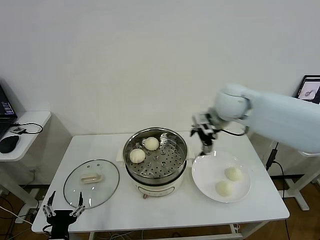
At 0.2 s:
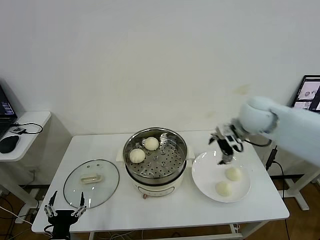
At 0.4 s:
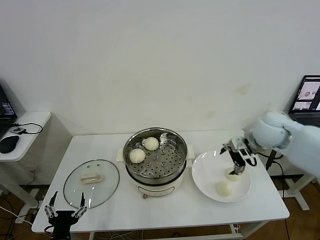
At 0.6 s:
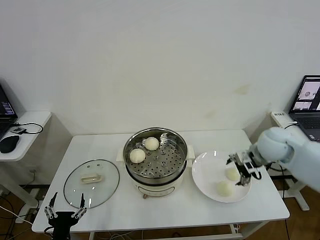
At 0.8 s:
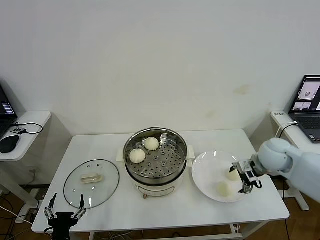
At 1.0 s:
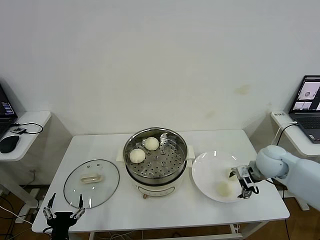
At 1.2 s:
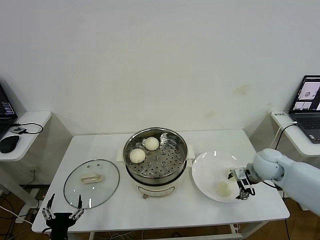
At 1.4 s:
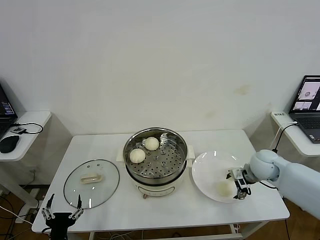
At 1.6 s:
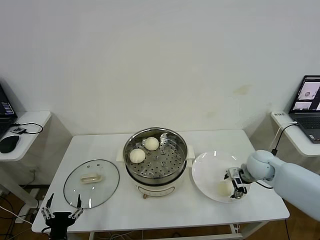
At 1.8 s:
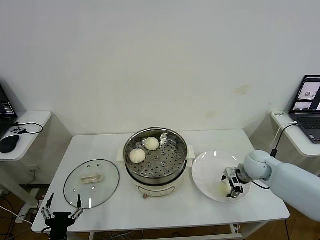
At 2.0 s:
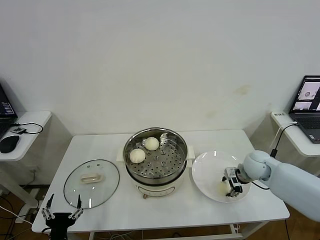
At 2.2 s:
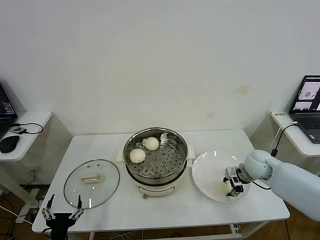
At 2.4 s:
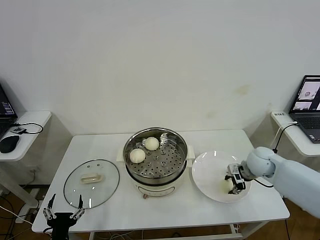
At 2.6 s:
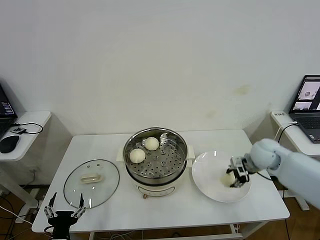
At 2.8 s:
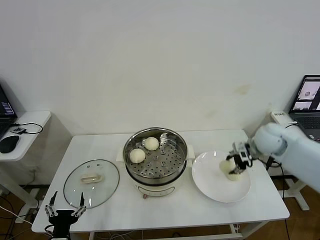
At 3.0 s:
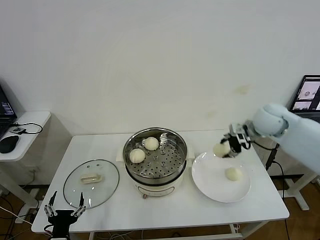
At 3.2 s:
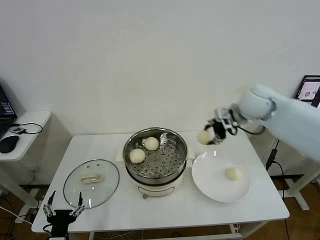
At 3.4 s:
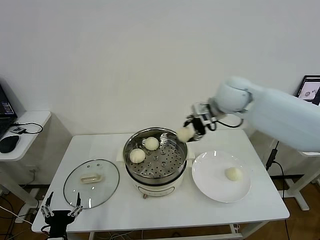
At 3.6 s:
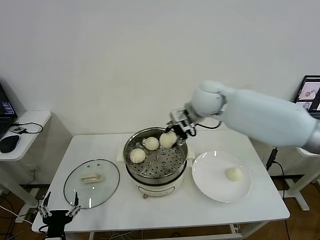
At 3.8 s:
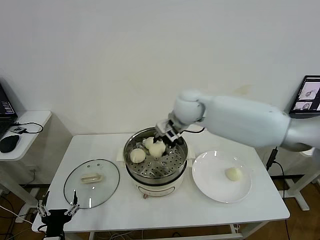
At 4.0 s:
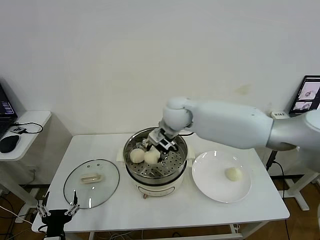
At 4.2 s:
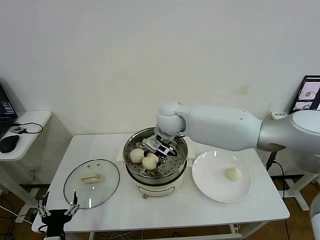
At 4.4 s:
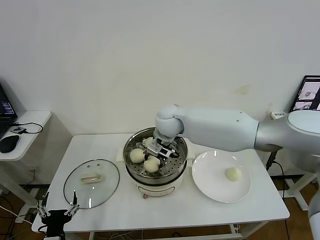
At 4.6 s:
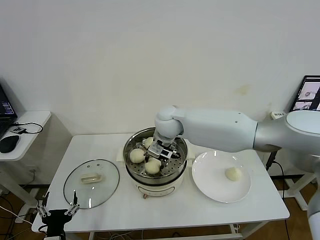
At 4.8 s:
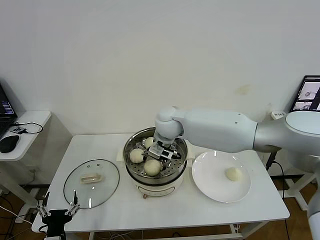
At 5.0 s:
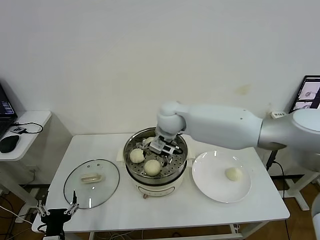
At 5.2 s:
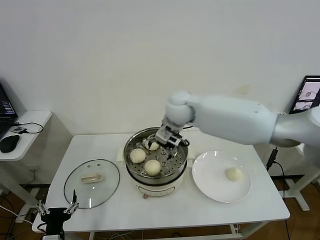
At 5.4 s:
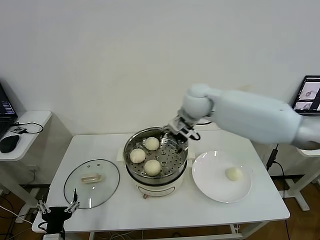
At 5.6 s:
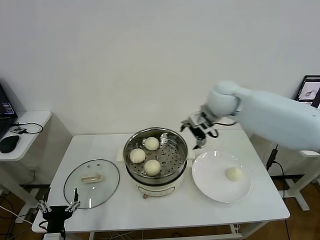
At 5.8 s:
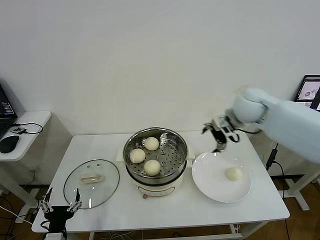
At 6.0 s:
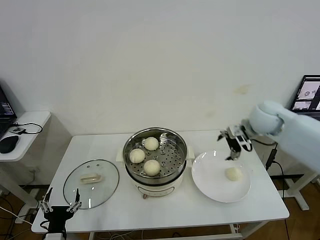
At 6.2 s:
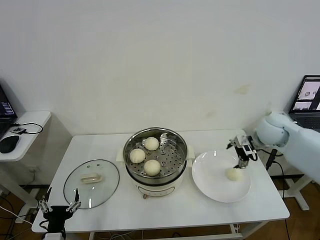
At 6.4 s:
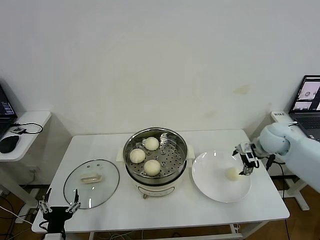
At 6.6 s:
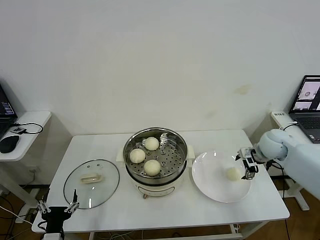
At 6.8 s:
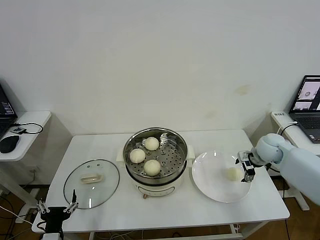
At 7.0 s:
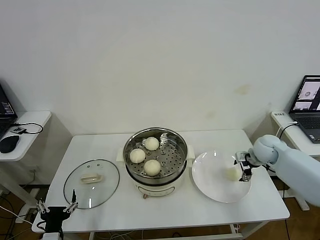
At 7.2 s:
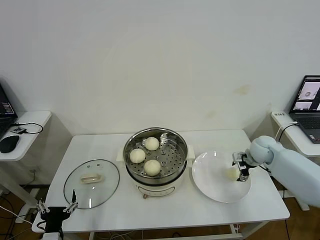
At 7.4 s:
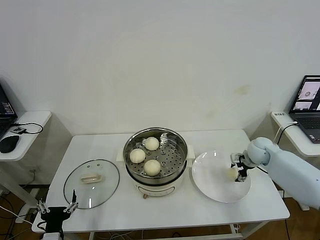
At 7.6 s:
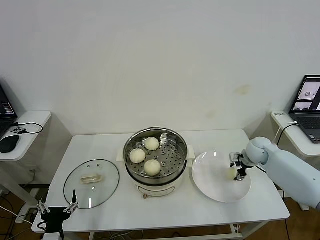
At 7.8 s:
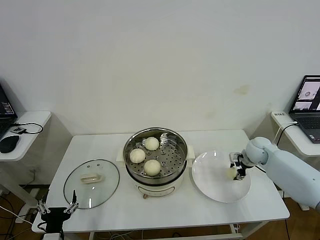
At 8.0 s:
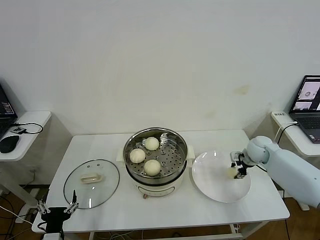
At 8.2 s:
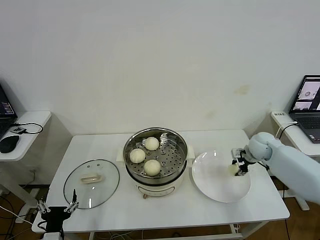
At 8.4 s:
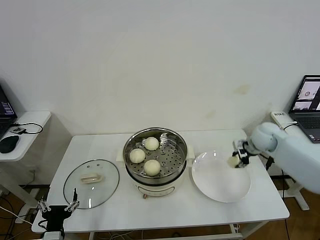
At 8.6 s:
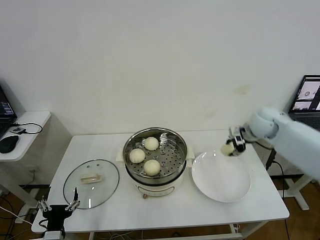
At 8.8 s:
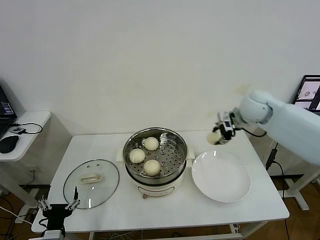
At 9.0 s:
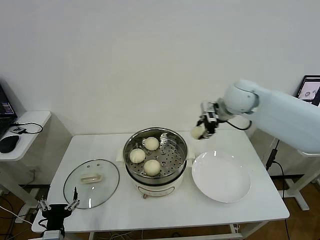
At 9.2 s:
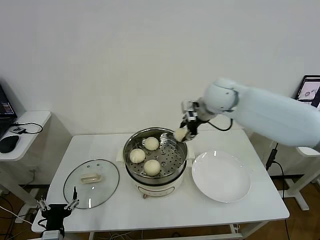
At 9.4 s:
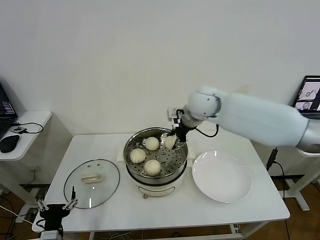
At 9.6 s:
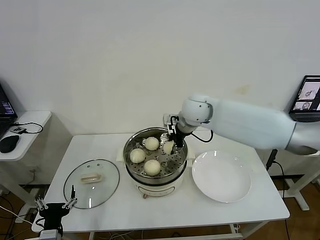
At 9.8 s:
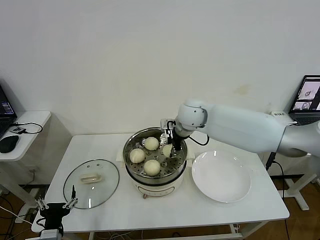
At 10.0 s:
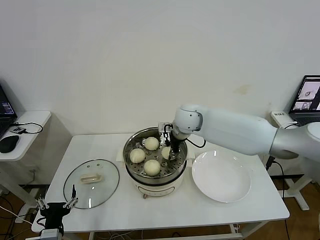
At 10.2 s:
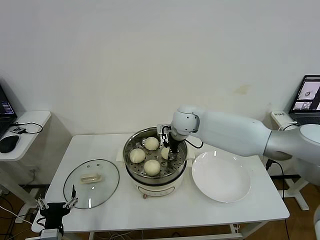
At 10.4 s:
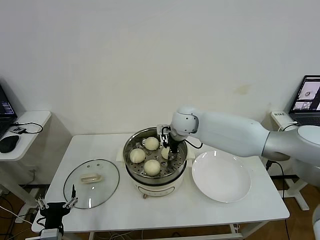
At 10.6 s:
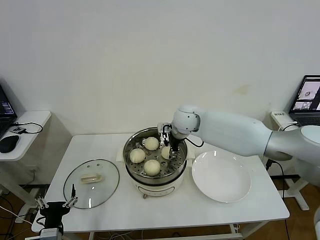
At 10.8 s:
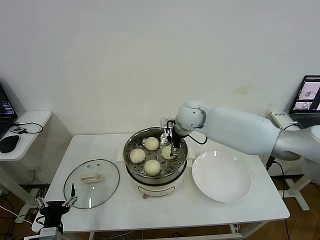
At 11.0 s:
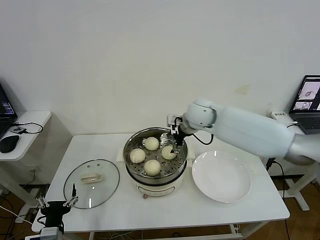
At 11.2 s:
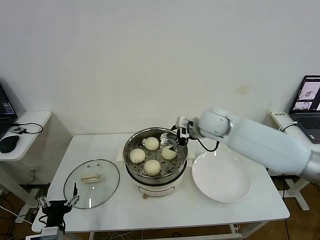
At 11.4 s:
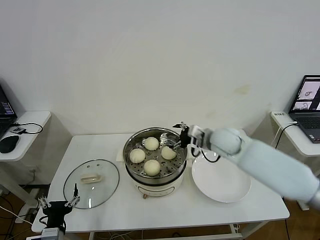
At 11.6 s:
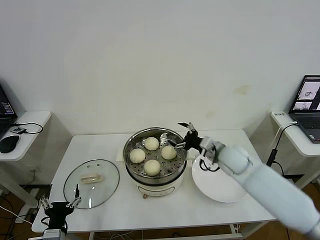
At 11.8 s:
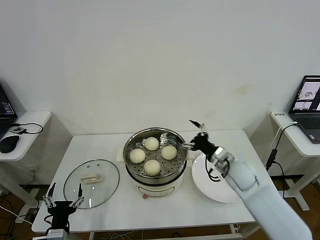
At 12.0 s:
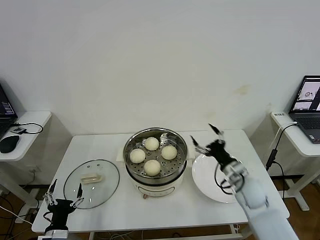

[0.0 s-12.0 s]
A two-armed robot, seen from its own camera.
Step, 0.0 to 1.8 s: Grasp the baozi in the plate with right gripper.
Step, 2.2 to 4.8 s: Place the baozi on the steamer with right gripper.
Step, 5.0 to 7.8 s: Grasp the baozi in the plate with right gripper.
Step, 8.0 to 10.8 s: Place the baozi on the steamer with right gripper.
0.0 to 1.6 s: The right gripper moves downward and to the right, roughly 25 cm.
1.6 to 3.0 s: The right gripper travels upward by some 20 cm, and closes its fingers.
3.0 to 4.4 s: The right gripper heads to the left, covering roughly 30 cm.
4.4 to 6.0 s: The right gripper goes approximately 30 cm to the right, and opens its fingers.
6.0 to 7.6 s: The right gripper goes about 15 cm downward, and closes up.
7.6 to 9.0 s: The right gripper goes roughly 25 cm upward and to the left.
9.0 to 10.4 s: The right gripper is displaced to the left and downward by approximately 20 cm.
10.4 to 12.0 s: The right gripper travels to the right, backward and downward by roughly 30 cm, and opens its fingers.

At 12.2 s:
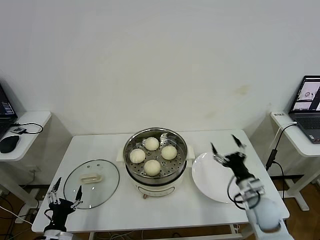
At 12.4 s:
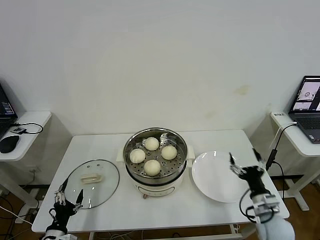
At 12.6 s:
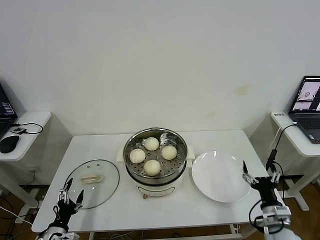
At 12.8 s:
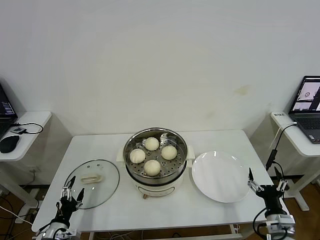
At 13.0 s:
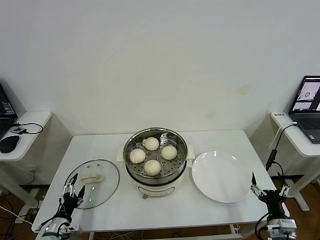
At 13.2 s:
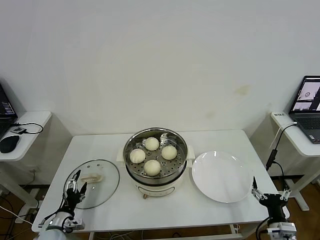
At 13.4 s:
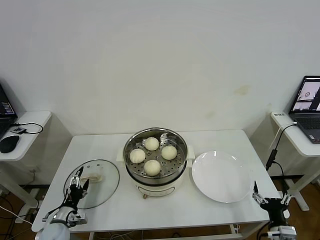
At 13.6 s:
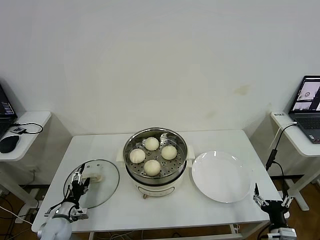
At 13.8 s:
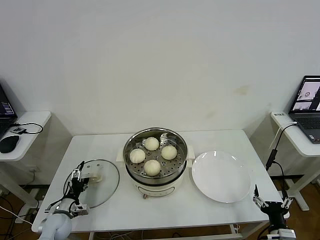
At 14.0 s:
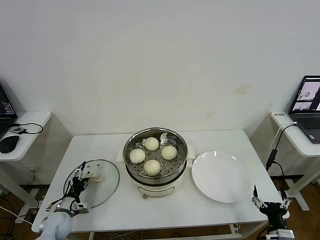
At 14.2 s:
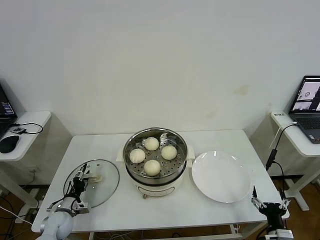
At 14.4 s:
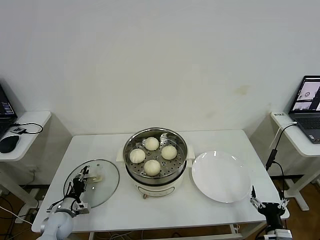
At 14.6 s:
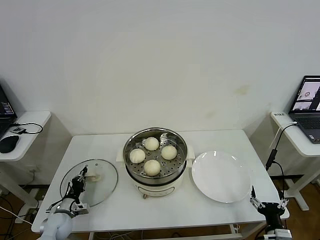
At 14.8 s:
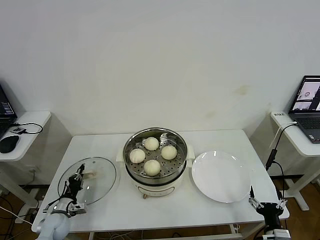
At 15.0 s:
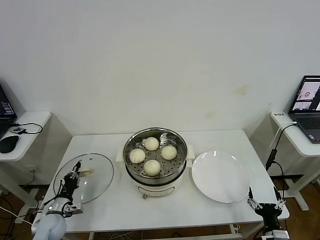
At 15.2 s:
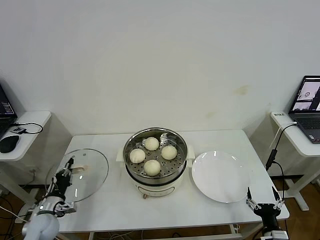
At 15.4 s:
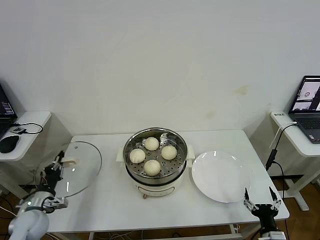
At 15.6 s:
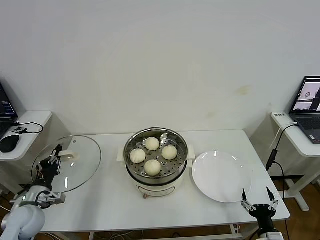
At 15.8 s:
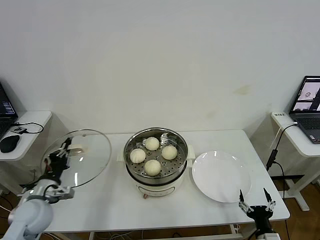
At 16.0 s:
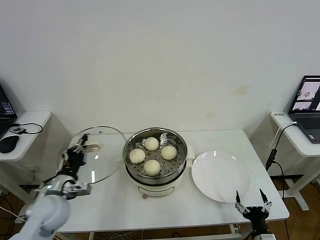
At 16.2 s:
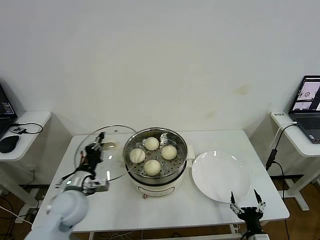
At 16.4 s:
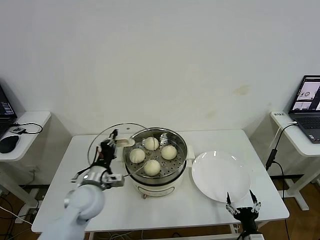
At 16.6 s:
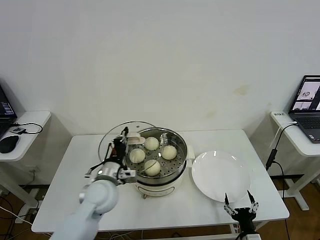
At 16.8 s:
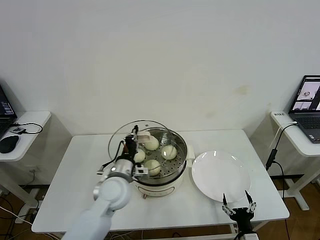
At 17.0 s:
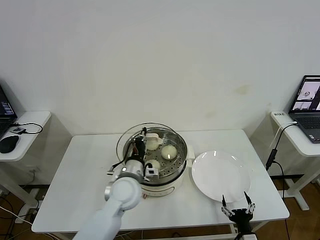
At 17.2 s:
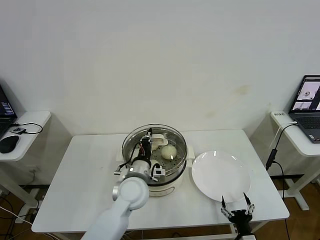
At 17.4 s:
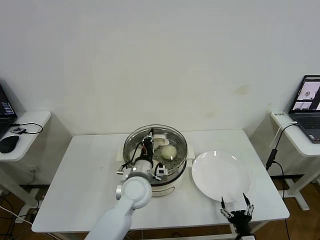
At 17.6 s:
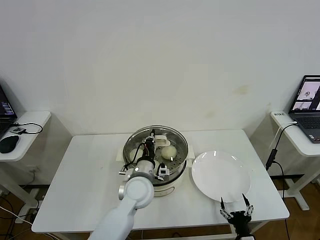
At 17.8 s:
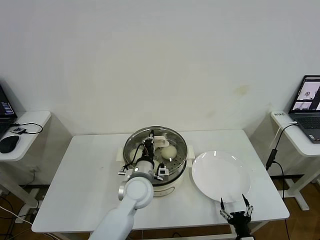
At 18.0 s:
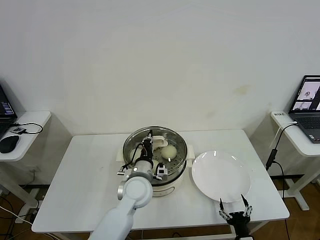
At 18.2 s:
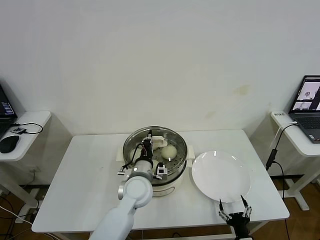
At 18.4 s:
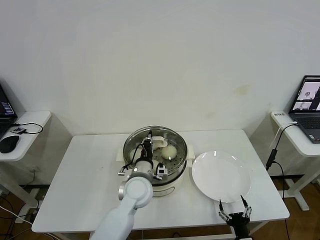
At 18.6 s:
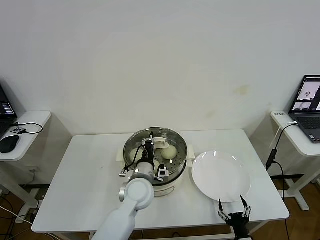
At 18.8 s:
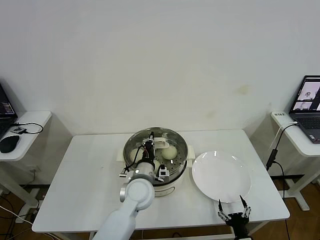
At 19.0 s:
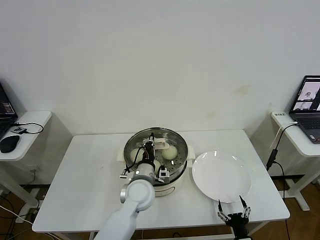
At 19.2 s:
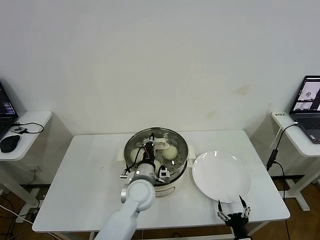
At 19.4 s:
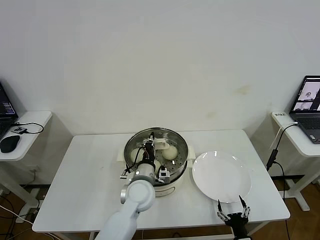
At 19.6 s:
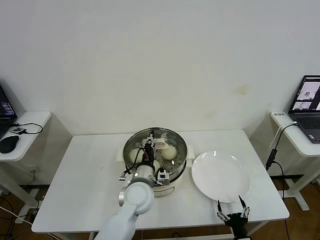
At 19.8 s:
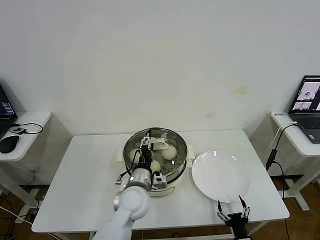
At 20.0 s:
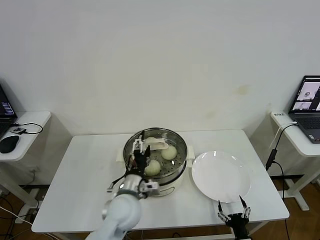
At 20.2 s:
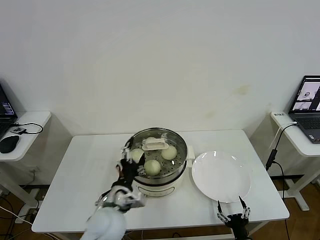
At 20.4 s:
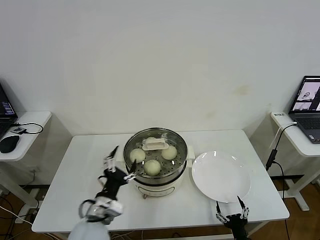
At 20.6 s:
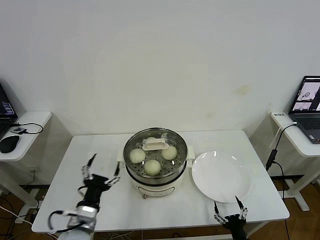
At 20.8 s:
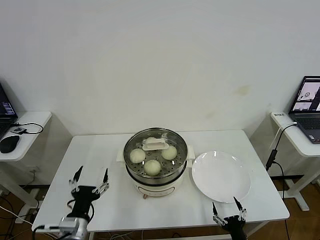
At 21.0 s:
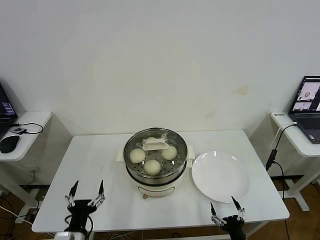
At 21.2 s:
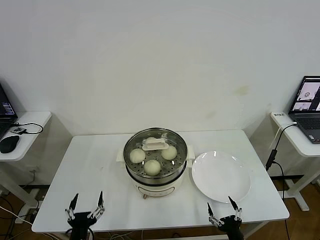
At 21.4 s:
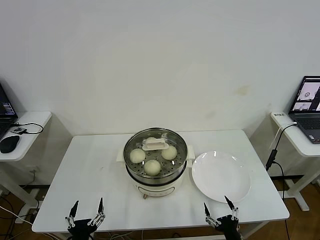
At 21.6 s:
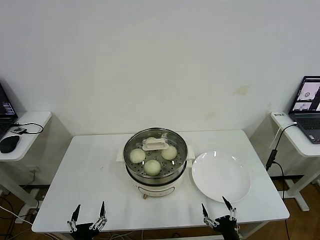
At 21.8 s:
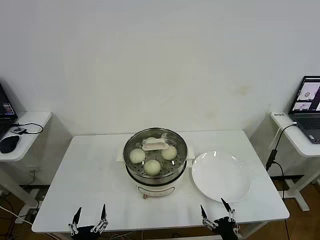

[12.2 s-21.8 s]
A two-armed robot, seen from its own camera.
Step, 12.2 to 14.8 s: Grasp the pot lid with left gripper.
Step, 15.0 to 19.6 s: Place the pot lid on the steamer with left gripper.
12.2 to 13.8 s: The right gripper travels backward and downward by about 15 cm. The left gripper heads forward and downward, covering about 15 cm.
13.8 to 15.4 s: The left gripper heads upward, covering approximately 10 cm, and closes up.
15.4 to 17.0 s: The left gripper travels to the right by roughly 30 cm; the right gripper goes about 5 cm to the left.
17.0 to 18.6 s: The left gripper changes place by approximately 5 cm.
18.6 to 20.2 s: The left gripper travels backward and to the left by approximately 10 cm, and opens.
20.2 to 21.8 s: The left gripper moves backward, downward and to the left, about 25 cm, while the right gripper moves approximately 5 cm.
